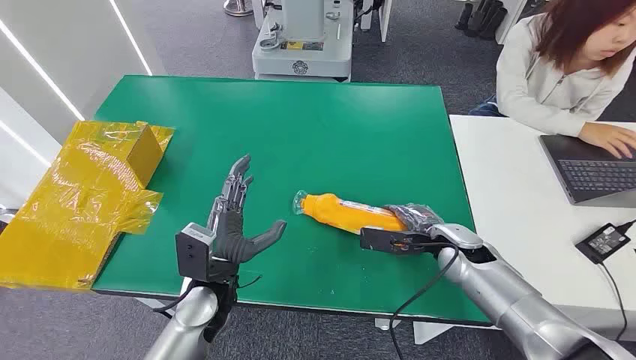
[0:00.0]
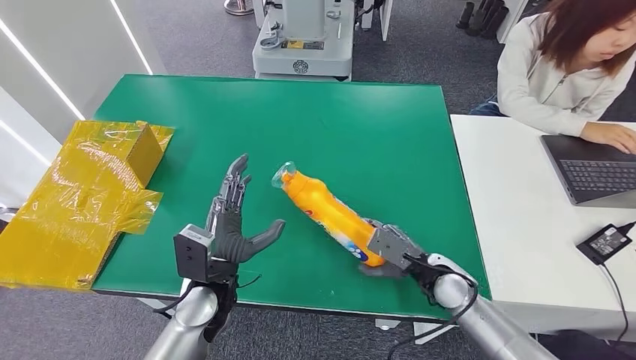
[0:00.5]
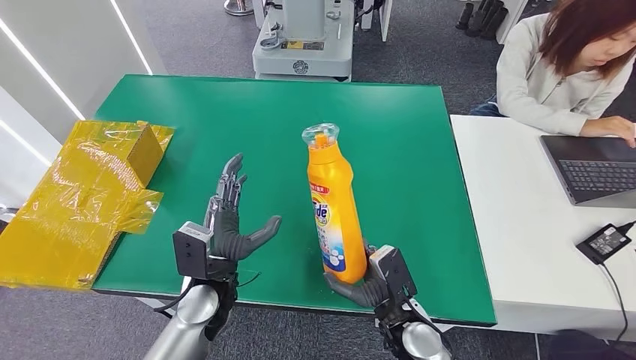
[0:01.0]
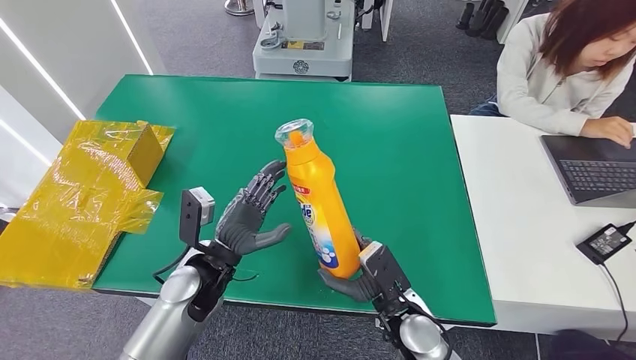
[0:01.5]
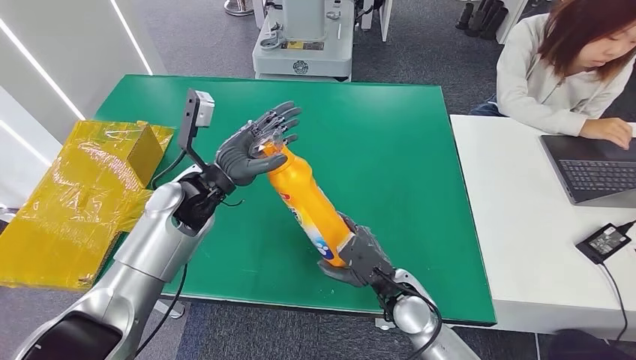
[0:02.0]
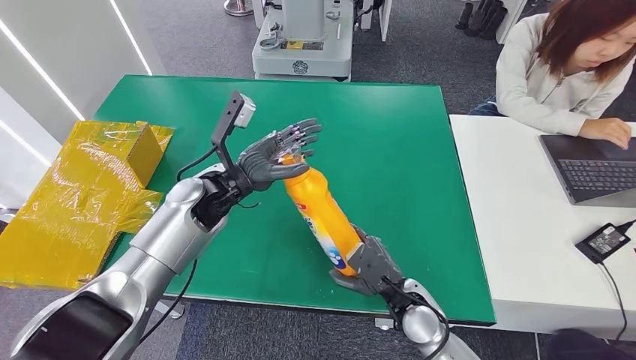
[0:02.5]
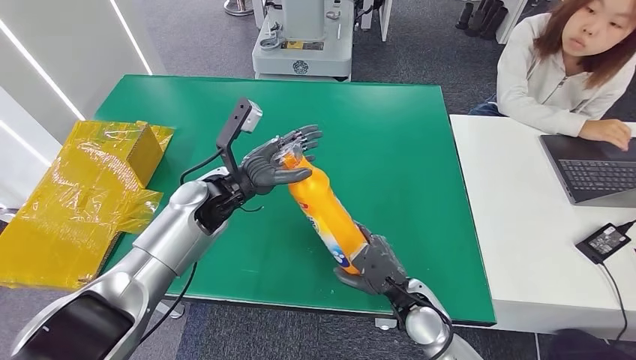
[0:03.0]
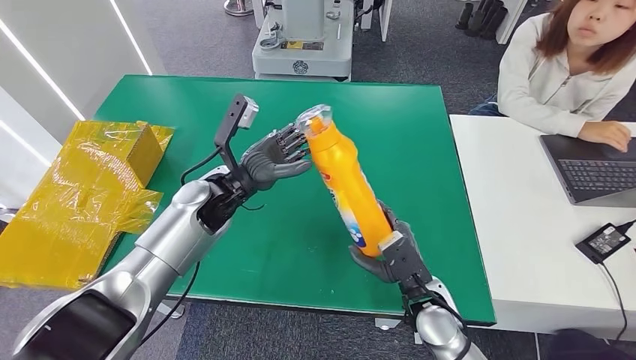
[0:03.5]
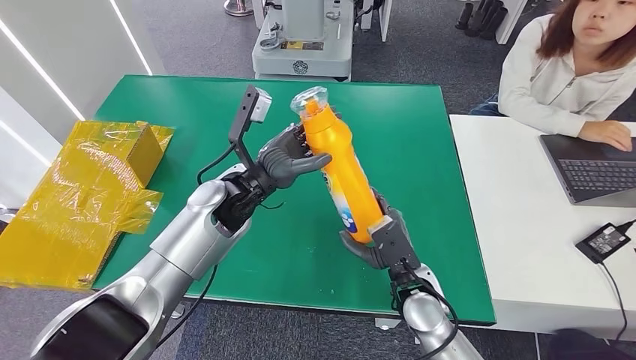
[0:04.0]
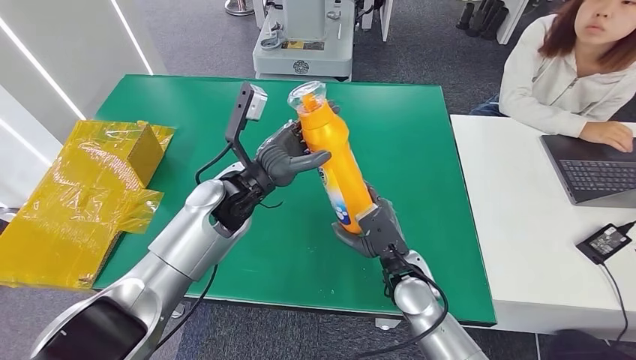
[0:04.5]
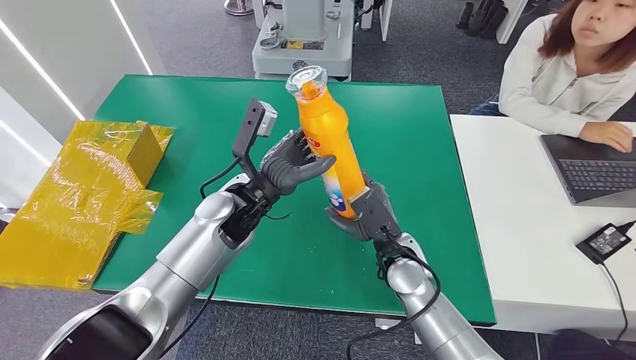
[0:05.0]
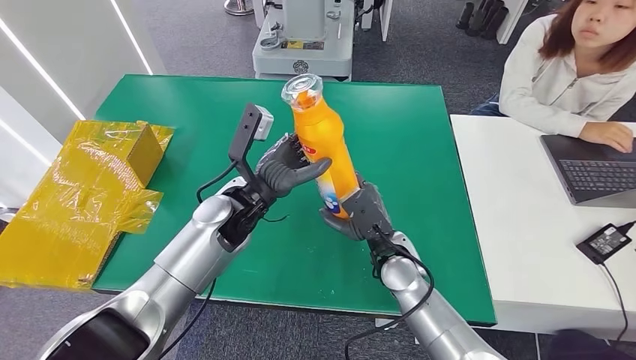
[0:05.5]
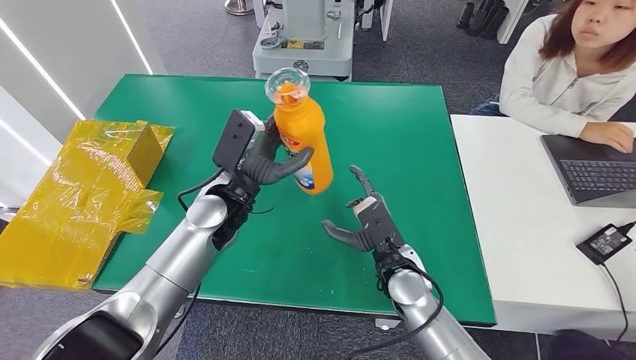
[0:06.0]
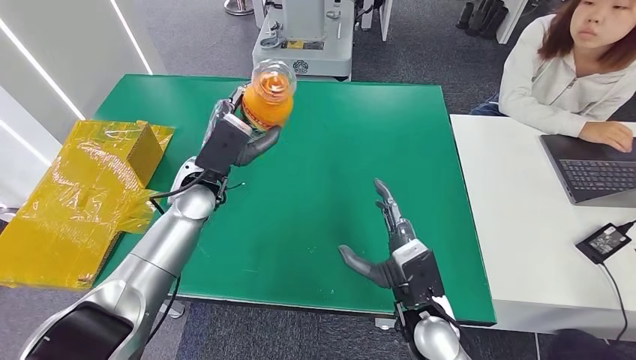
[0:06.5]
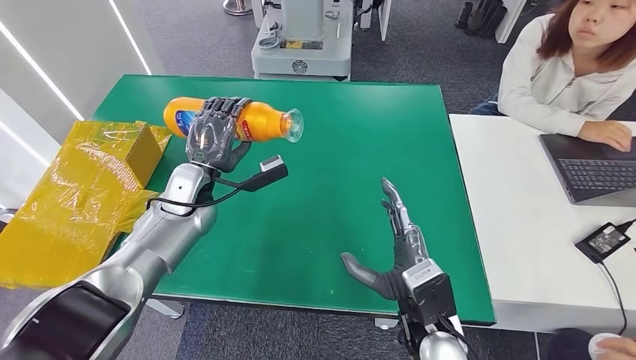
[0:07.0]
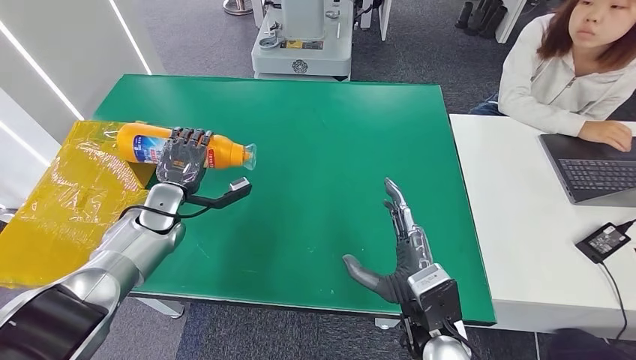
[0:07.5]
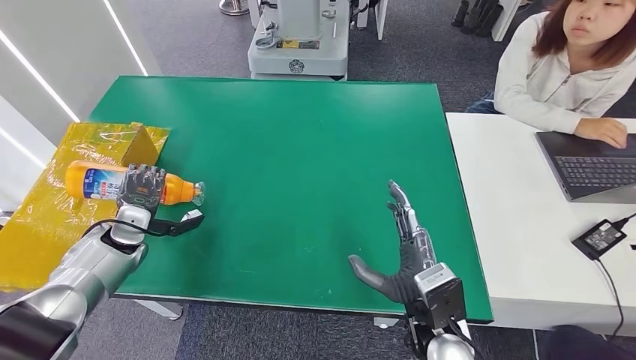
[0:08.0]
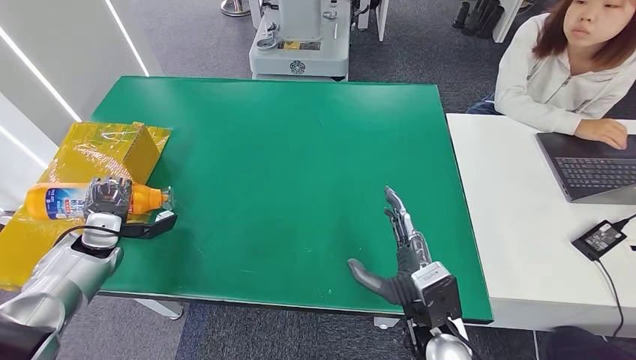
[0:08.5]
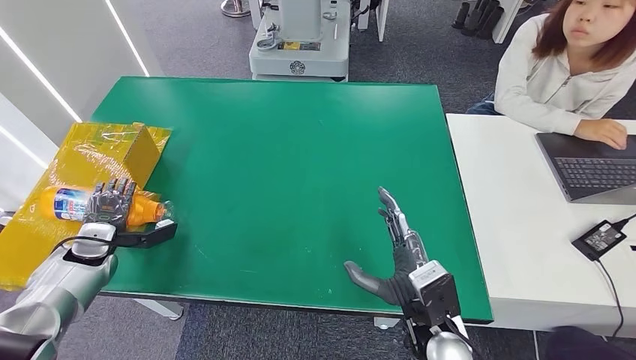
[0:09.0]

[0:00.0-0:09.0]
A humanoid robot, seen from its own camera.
Step, 0:00.0 to 0:01.5: Pick up the bottle from the table.
Step, 0:02.5 to 0:09.0: Turn the bottle to the front side.

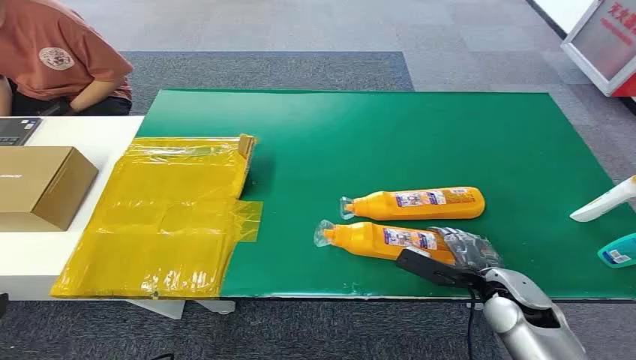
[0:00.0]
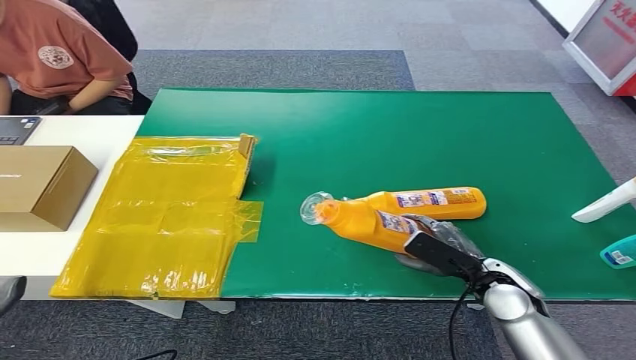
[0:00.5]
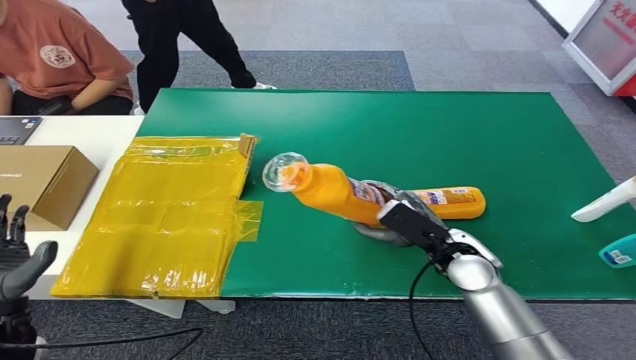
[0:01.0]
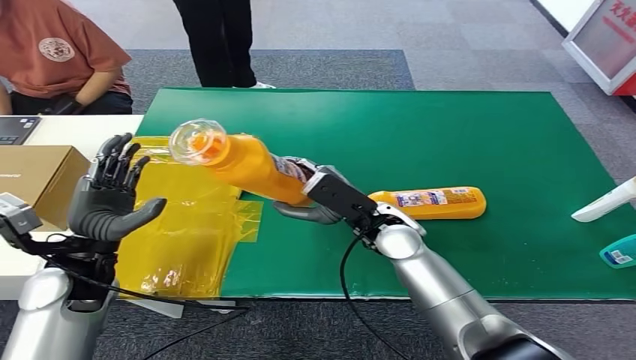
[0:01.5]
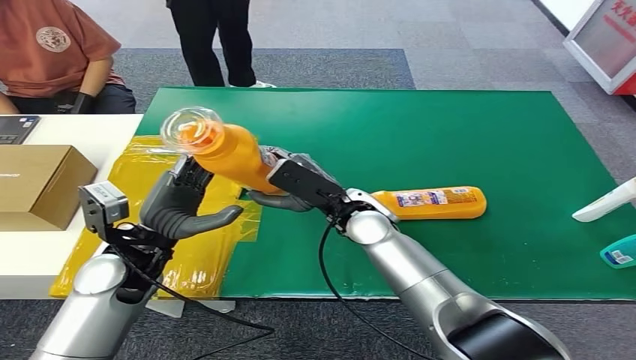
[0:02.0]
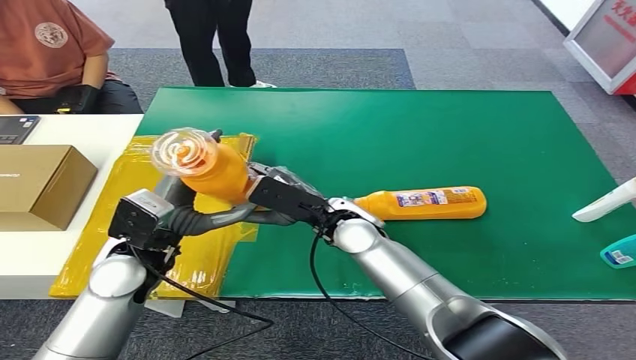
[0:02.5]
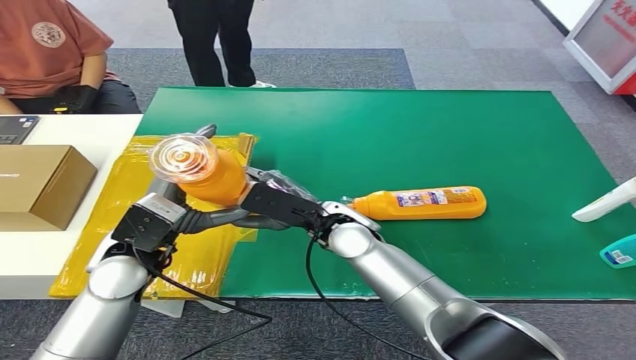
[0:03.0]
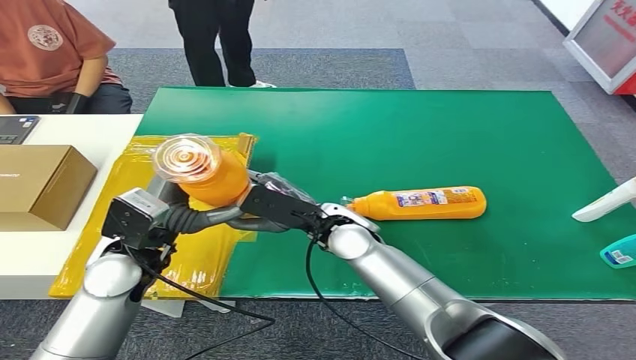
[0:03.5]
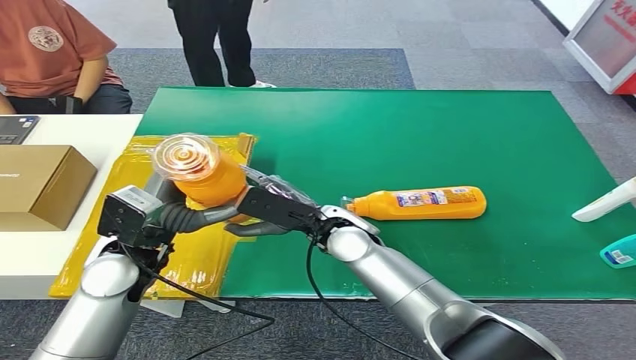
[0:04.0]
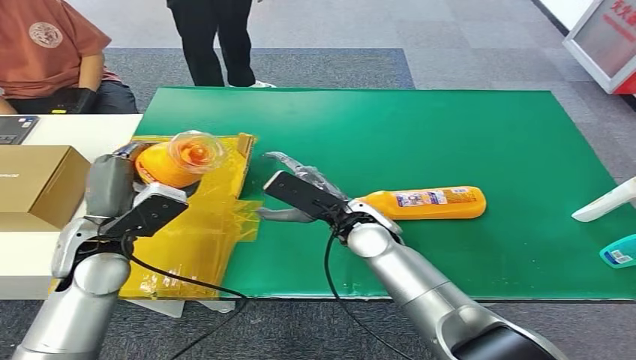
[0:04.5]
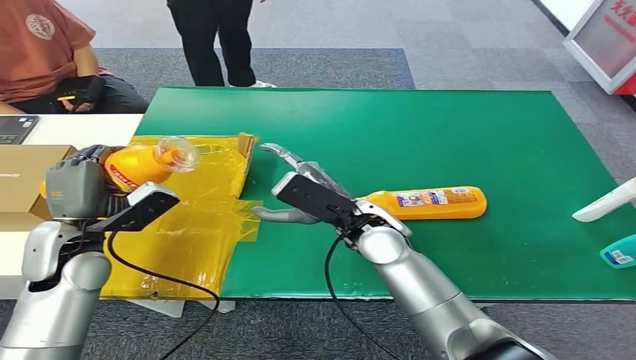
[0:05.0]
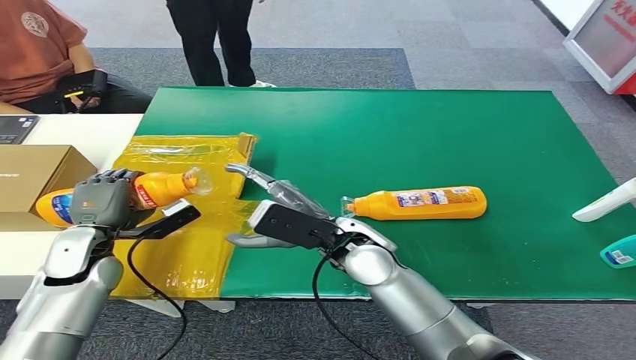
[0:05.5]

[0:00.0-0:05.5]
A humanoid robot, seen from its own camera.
Step, 0:00.0 to 0:01.5: Pick up the bottle from the table.
Step, 0:02.0 to 0:05.5: Turn the bottle to the front side.
